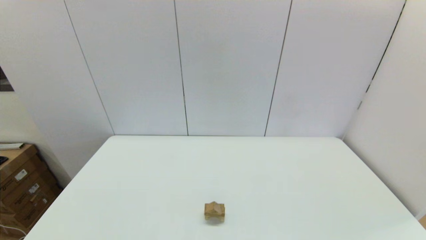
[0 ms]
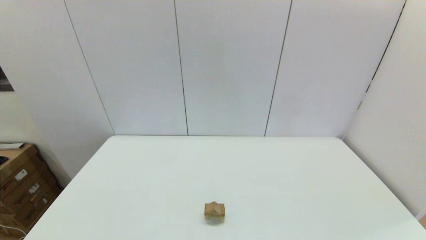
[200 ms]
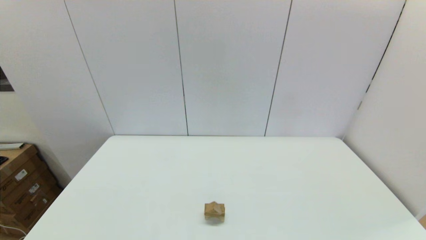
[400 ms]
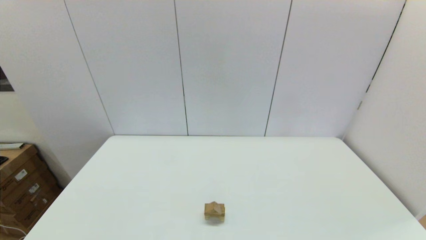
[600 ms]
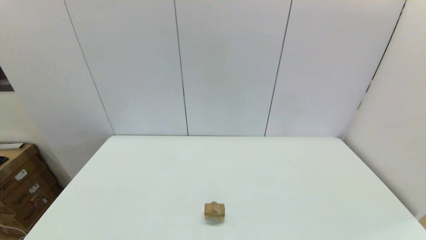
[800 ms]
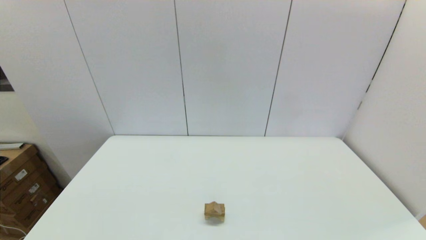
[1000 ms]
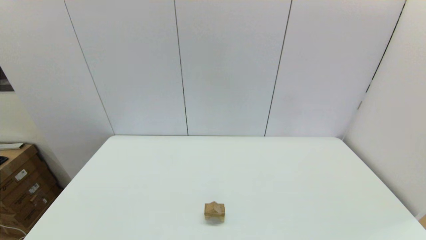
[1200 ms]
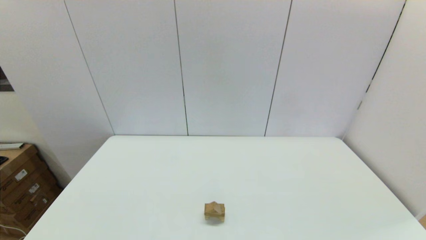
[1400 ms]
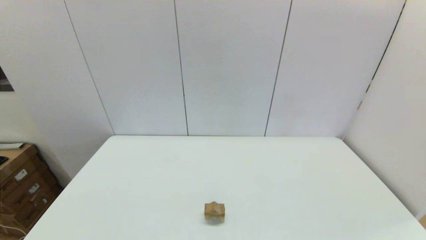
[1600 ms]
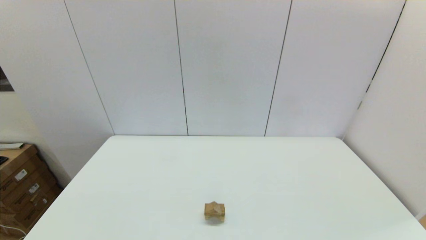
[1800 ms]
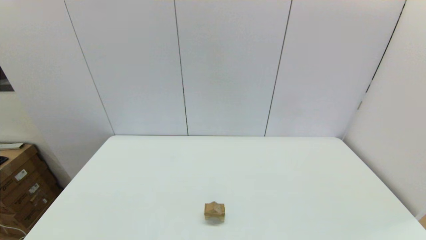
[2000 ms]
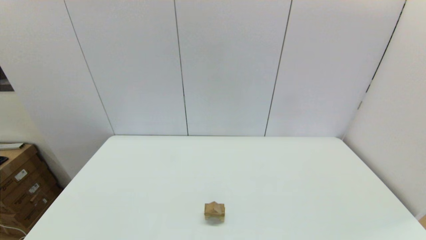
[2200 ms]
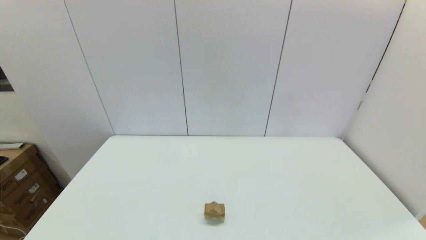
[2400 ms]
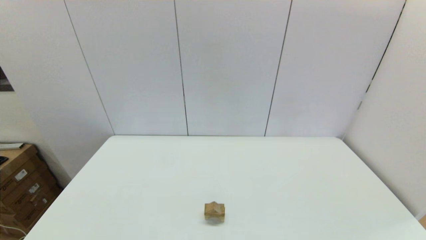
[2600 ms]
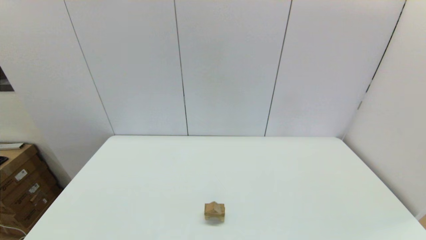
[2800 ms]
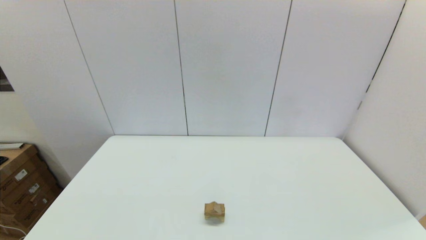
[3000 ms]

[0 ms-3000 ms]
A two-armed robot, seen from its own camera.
Task of the whole recording: place the arched building blocks in the center of the table, set up the rectangular building blocks, and then set up the triangular building blocks.
1600 ms to 3000 ms: Neither gripper changes place.
